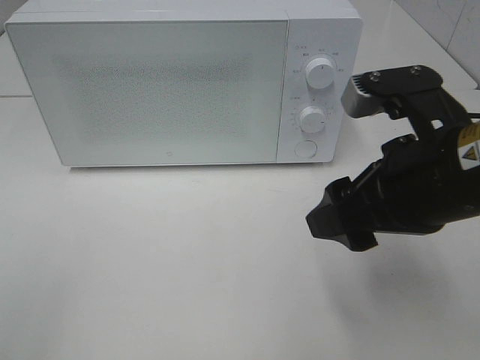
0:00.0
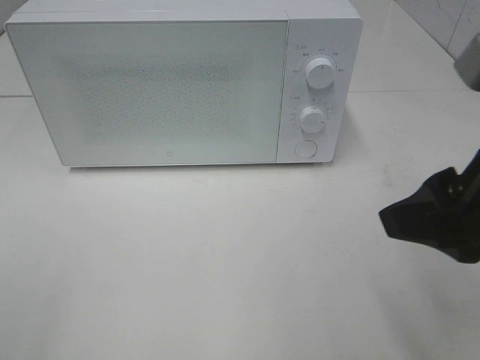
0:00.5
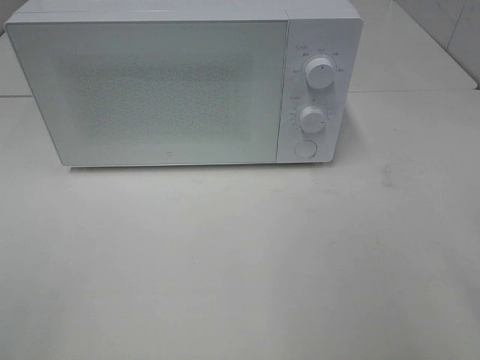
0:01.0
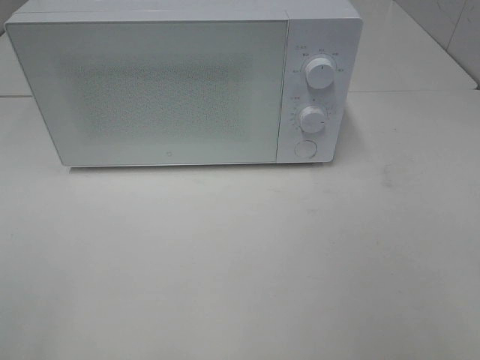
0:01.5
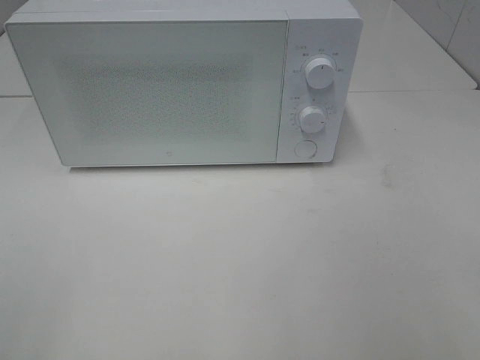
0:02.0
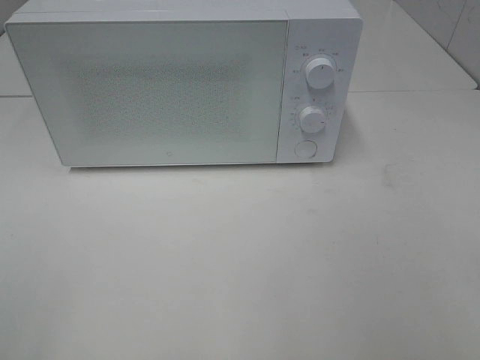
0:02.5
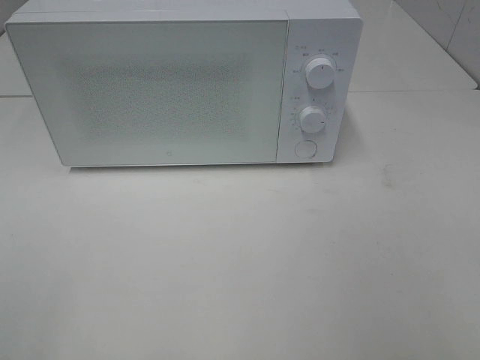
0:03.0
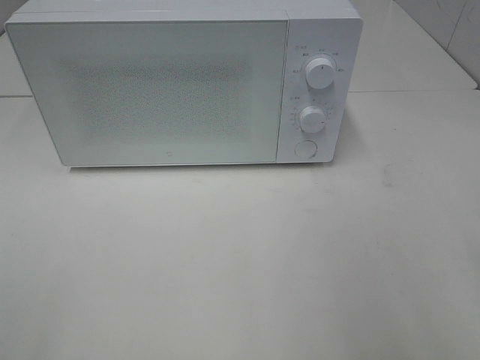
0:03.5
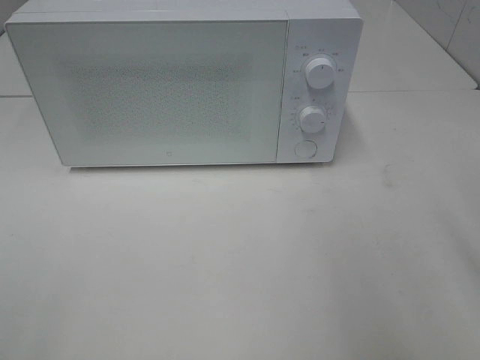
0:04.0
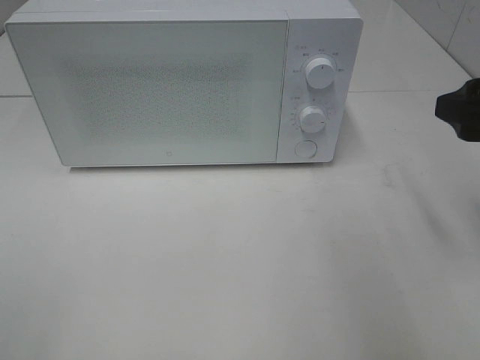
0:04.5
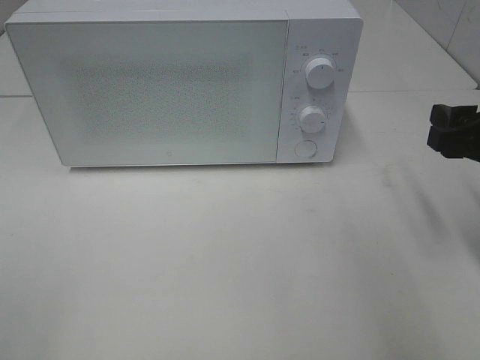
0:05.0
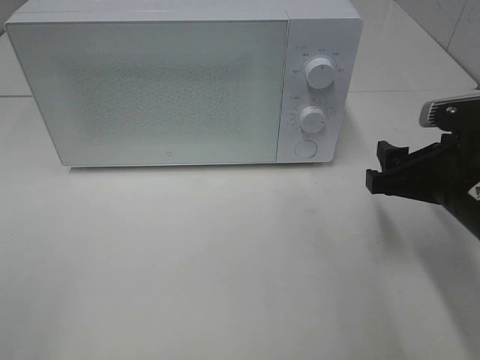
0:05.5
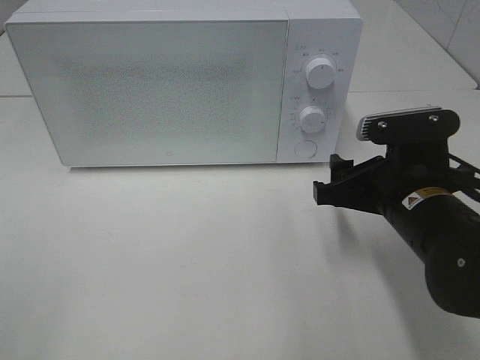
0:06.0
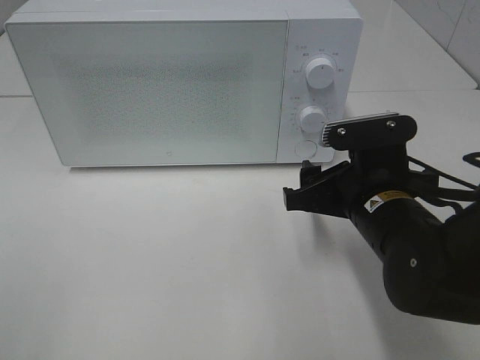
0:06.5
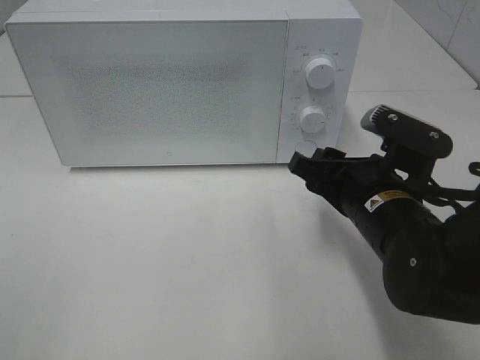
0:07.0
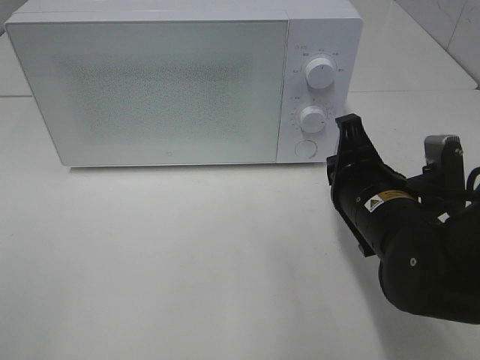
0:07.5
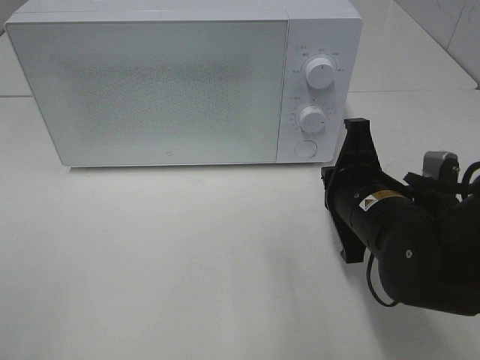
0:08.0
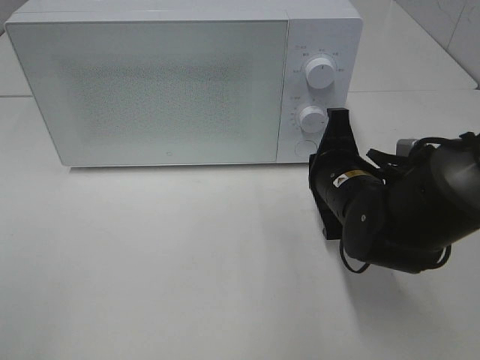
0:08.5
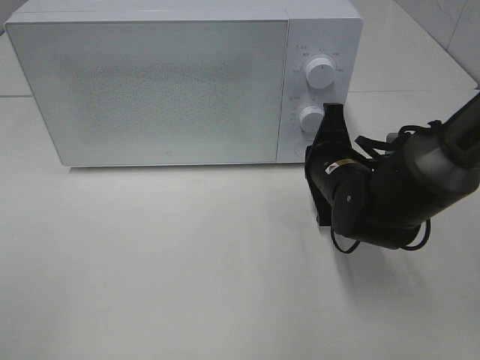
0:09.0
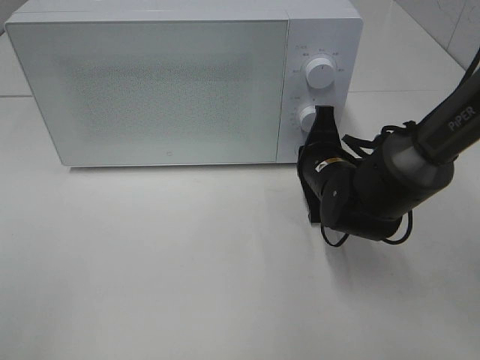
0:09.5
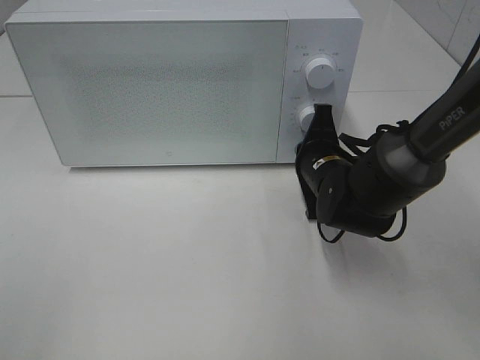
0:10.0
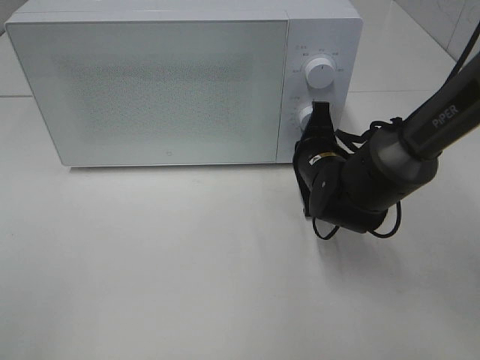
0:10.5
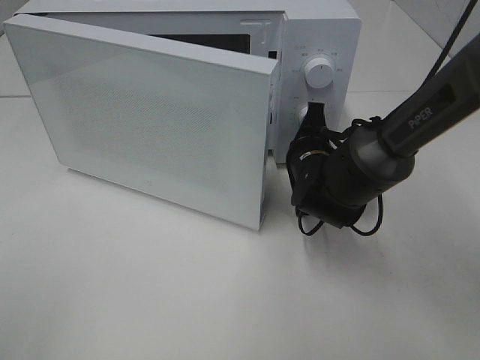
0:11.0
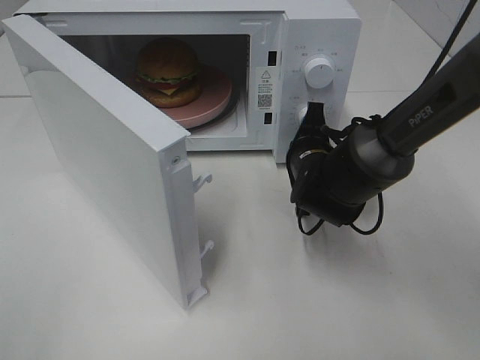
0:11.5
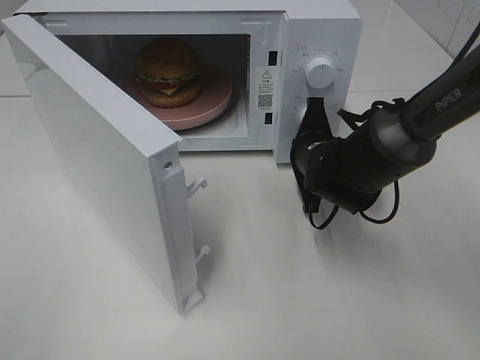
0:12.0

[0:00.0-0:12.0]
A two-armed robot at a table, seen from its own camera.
Task of the whole recording: Heat the burger.
0:00.0 to 0:02.0: The right gripper shifts some 20 cm backward and to the right.
0:04.0 to 0:06.0: The right gripper shifts some 20 cm downward, to the left and forward.
0:06.0 to 0:08.0: The right gripper closes up.
0:08.0 to 0:10.0: The right gripper travels forward by some 10 cm.

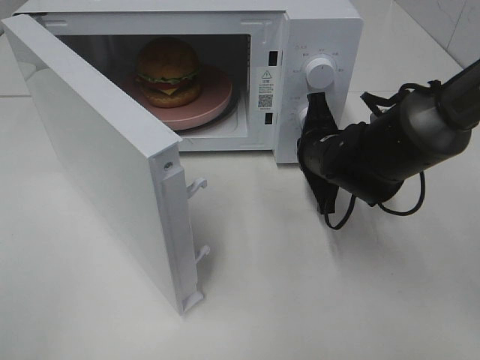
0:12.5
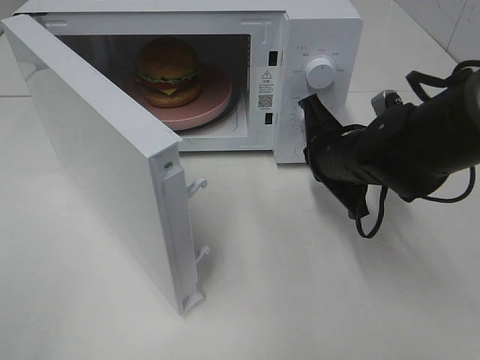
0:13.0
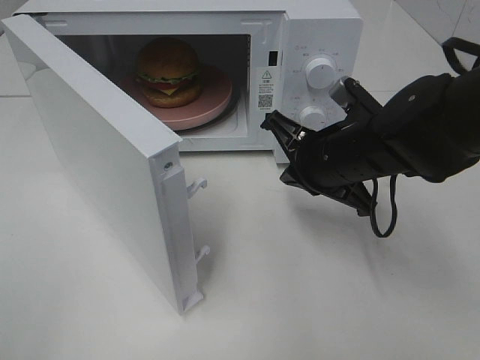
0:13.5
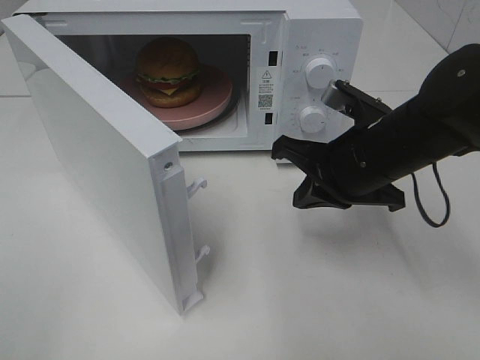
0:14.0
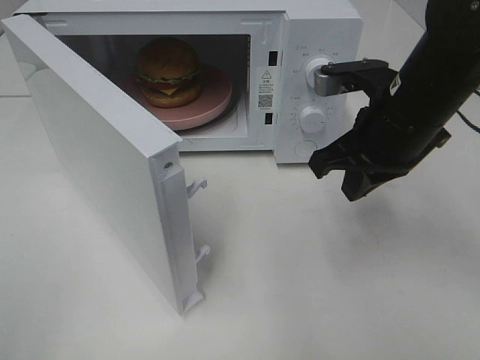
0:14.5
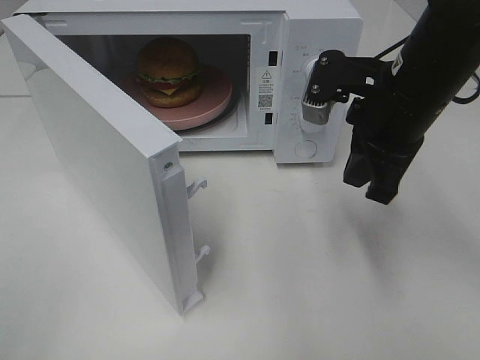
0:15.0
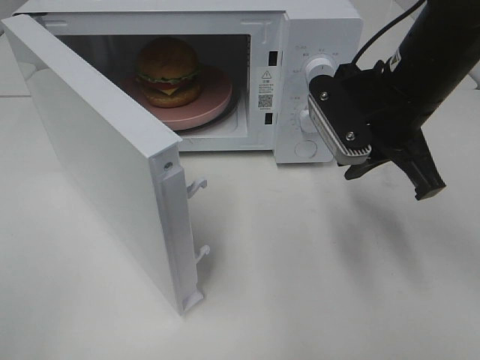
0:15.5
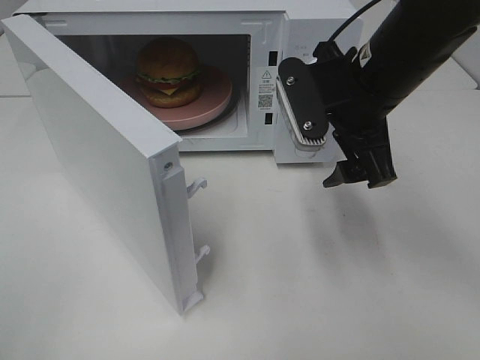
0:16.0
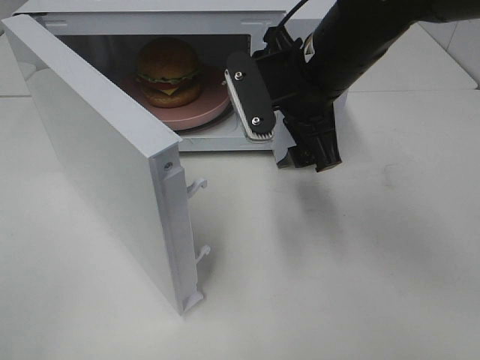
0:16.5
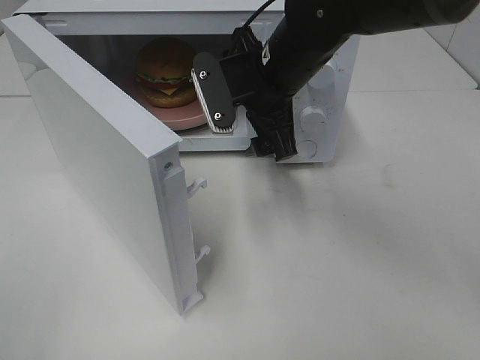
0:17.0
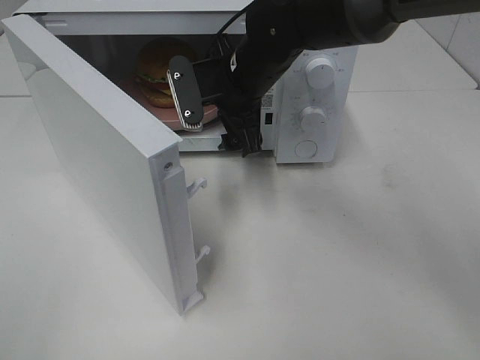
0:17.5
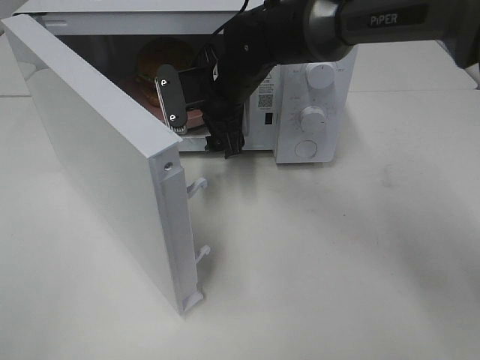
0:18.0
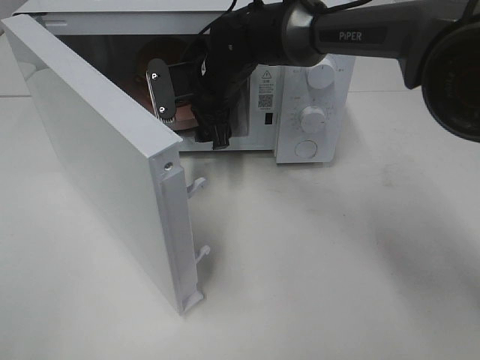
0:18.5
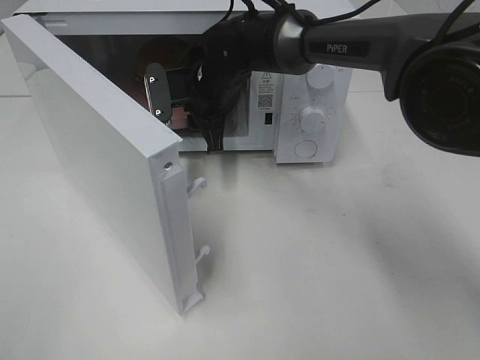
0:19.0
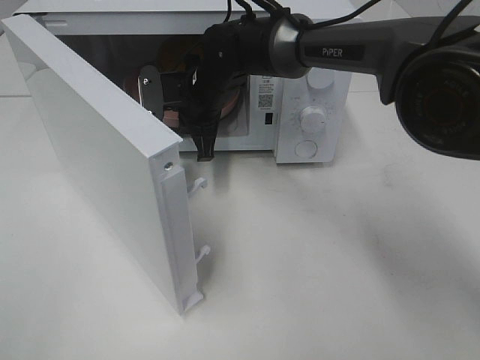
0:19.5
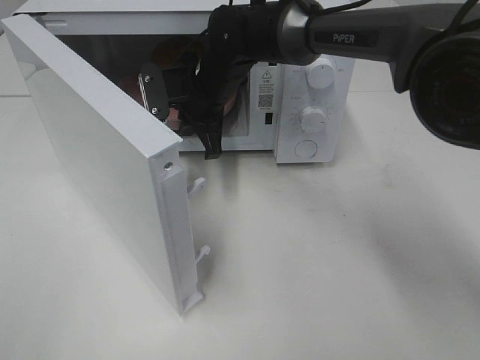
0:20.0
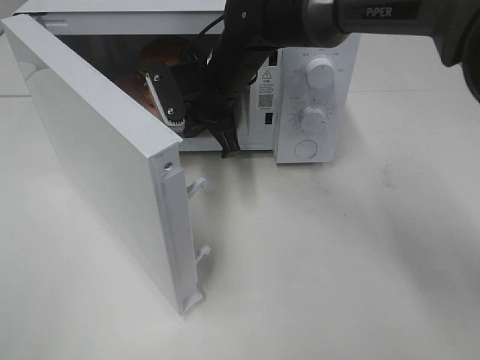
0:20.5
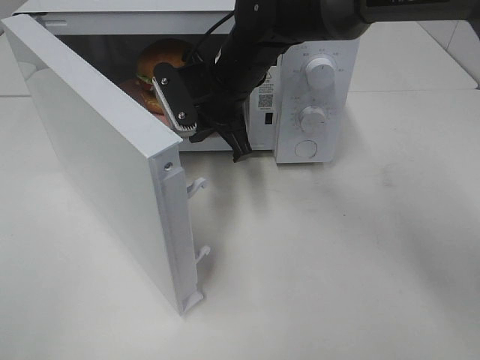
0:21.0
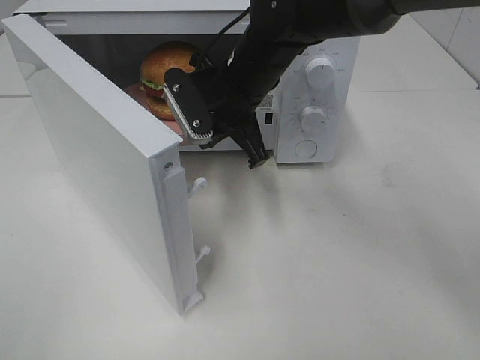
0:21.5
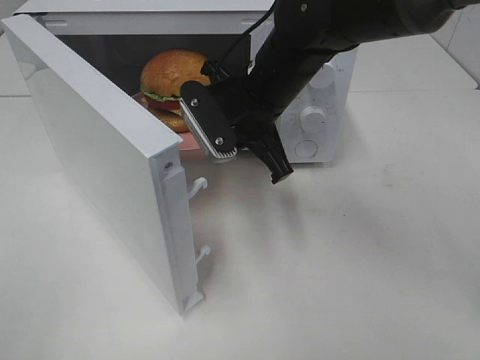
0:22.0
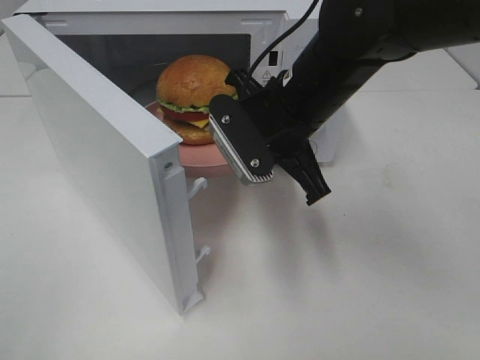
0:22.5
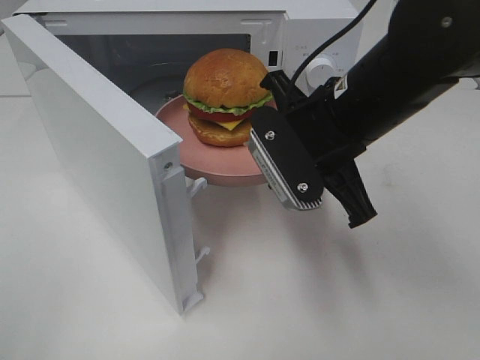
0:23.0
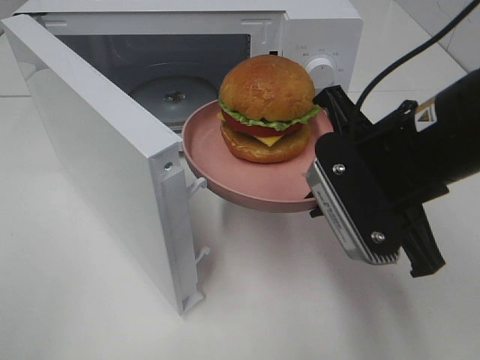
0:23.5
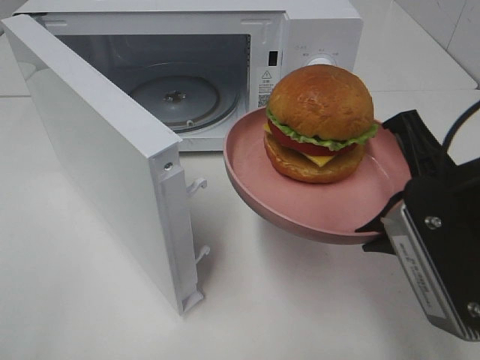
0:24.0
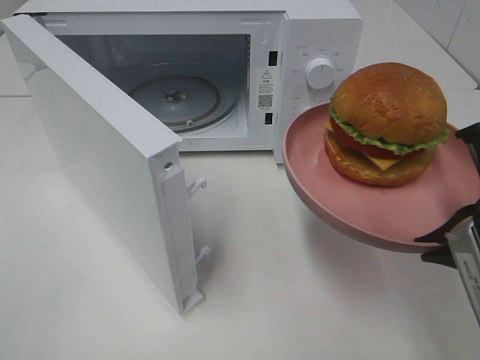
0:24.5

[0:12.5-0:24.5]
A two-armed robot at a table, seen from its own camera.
Task of the whole recording: Heat the burger.
Step, 0:12.5 to 0:19.0: Right hand: grab the plate with the hamburger.
0:12.5 to 0:14.5: The right gripper goes about 15 cm upward and backward.
0:14.5 to 0:16.5: The right gripper moves to the left, approximately 10 cm, and opens.
0:16.5 to 0:18.5: The right gripper heads forward, to the left and downward, covering roughly 15 cm.
0:18.5 to 0:20.5: The right gripper closes its fingers.
0:20.5 to 0:22.5: The right gripper travels backward and to the right by about 15 cm.
0:22.5 to 0:24.5: The right gripper shifts approximately 25 cm backward and to the right.

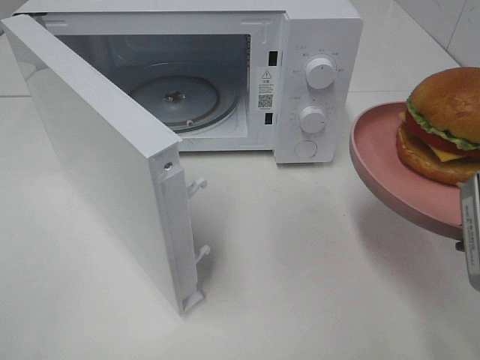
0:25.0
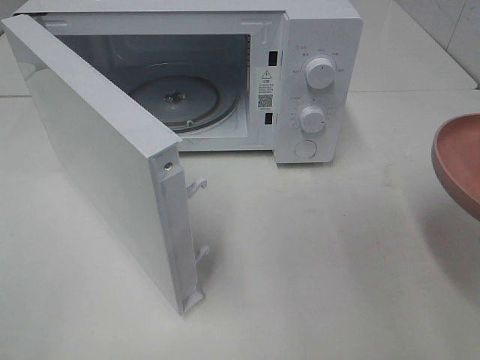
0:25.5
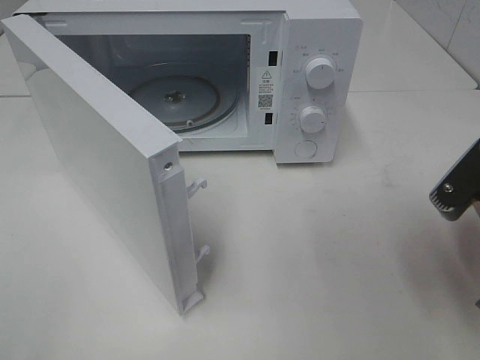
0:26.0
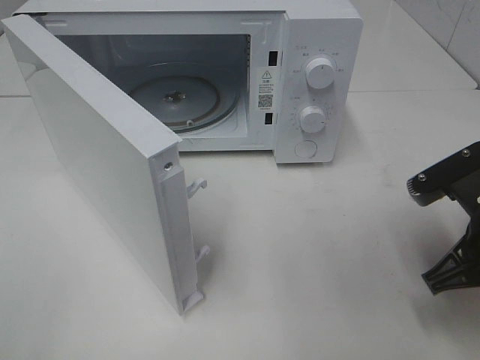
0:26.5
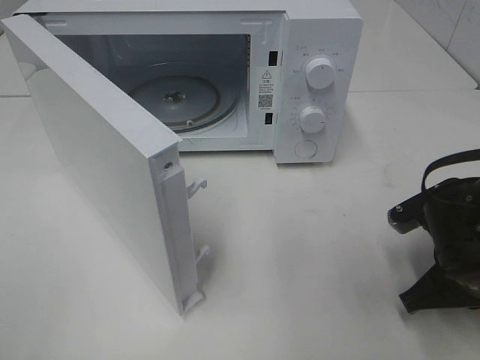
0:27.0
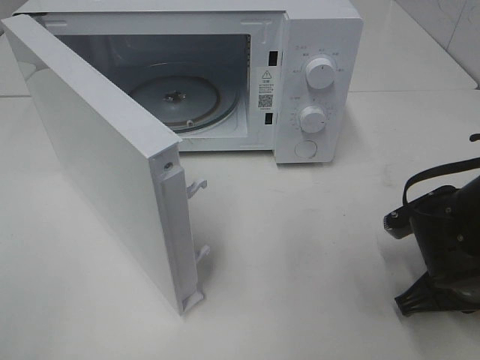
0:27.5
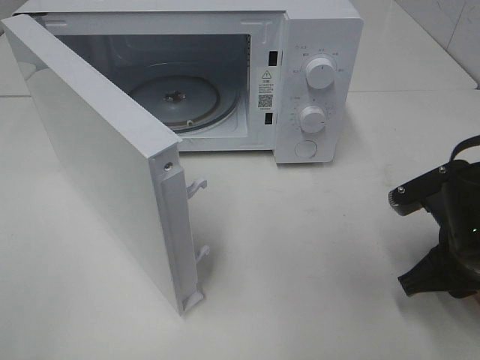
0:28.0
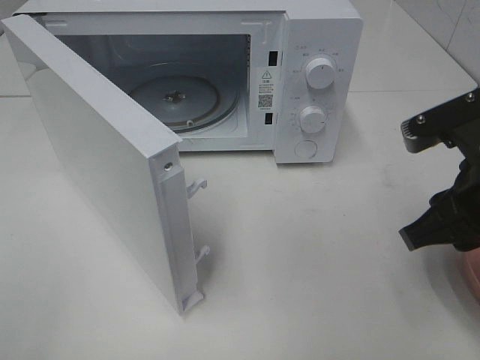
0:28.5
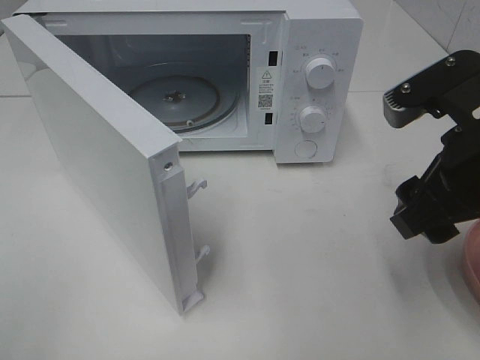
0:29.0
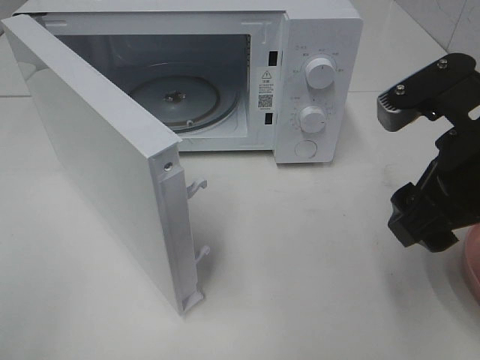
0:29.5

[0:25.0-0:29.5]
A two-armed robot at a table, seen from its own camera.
Task of the whole recording: Heat the burger.
Step, 0:25.0 to 0:27.5: Right hand: place the plate on the table.
0:25.0 to 0:27.0: The right gripper travels downward and forward by roughly 15 cm.
0:27.0 to 0:29.5: The right gripper travels upward by some 15 cm, and opens up.
